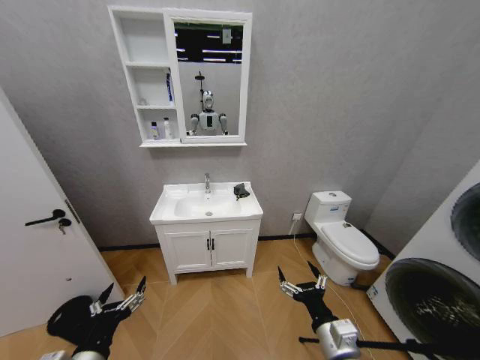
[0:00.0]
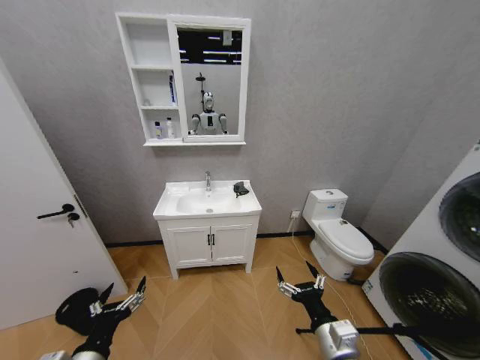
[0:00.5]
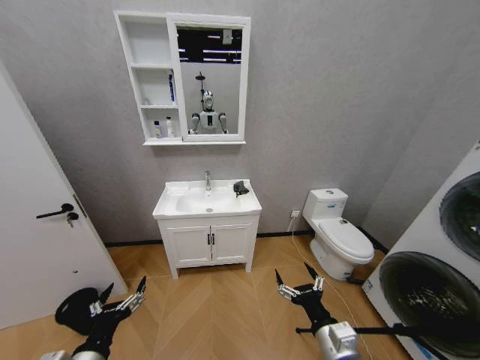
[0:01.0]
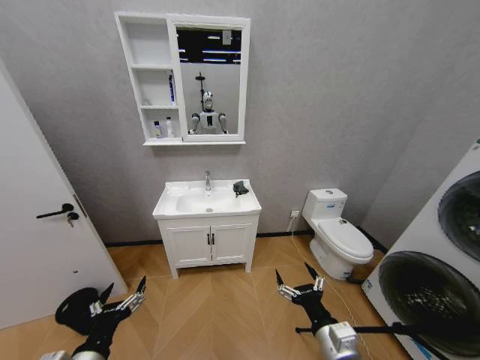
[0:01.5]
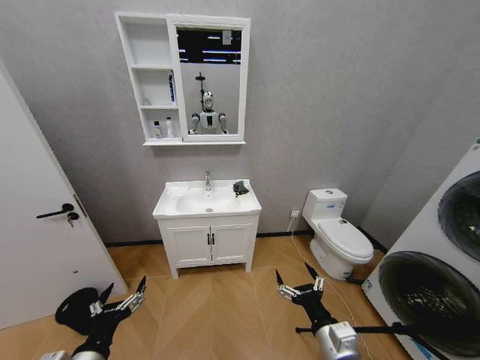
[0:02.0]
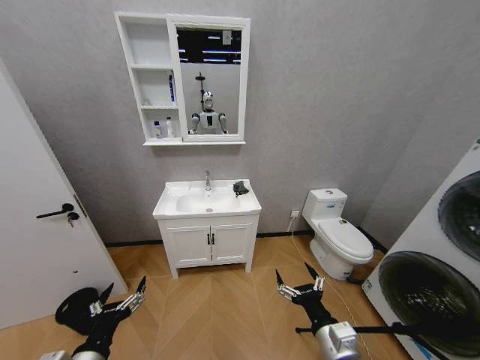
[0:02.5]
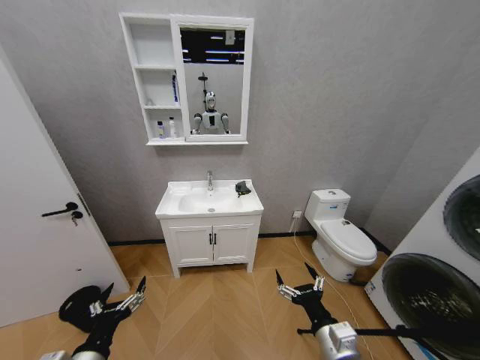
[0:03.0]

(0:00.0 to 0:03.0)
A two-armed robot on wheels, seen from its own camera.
Task of the whole recording: Move facial cleanser and shampoo from washbasin to cabinet, then wipe washbasin with towel.
0:00.0 - 0:03.0: Both grippers stay about where they are.
